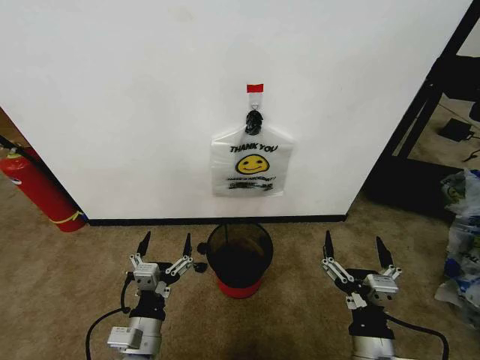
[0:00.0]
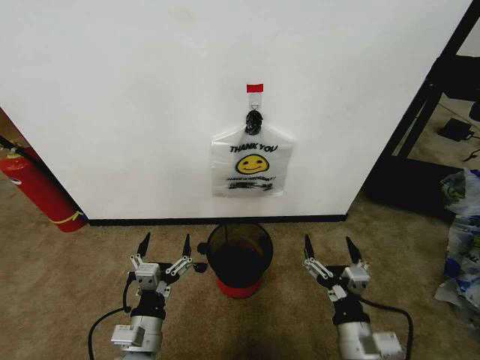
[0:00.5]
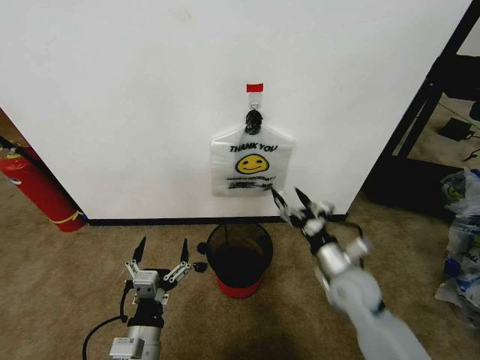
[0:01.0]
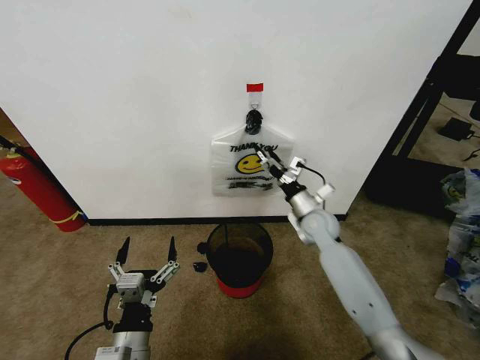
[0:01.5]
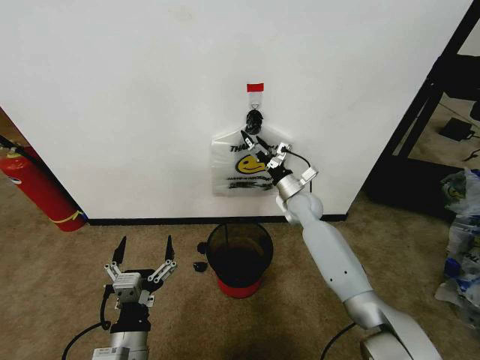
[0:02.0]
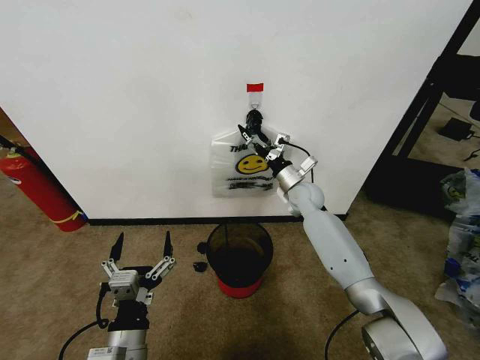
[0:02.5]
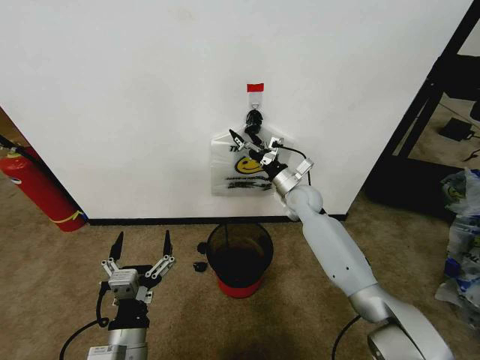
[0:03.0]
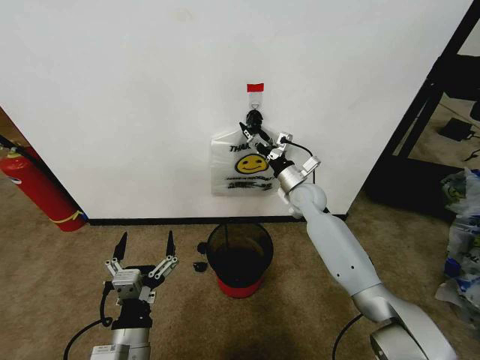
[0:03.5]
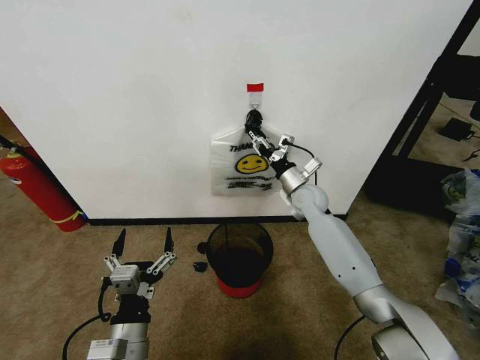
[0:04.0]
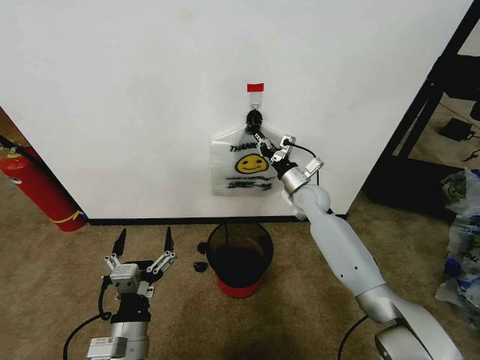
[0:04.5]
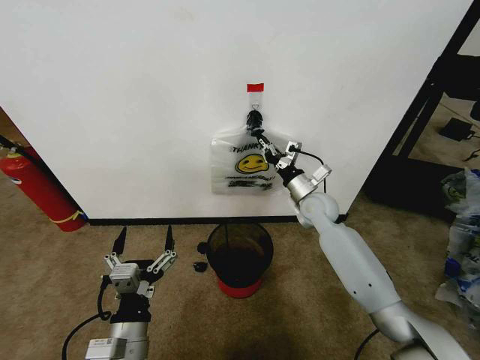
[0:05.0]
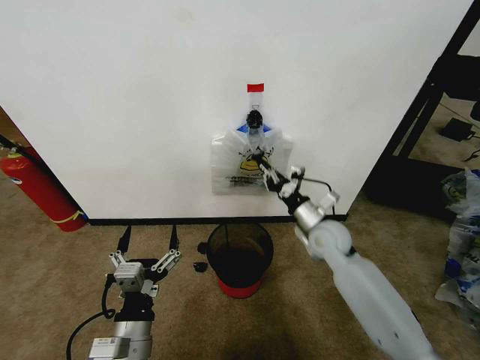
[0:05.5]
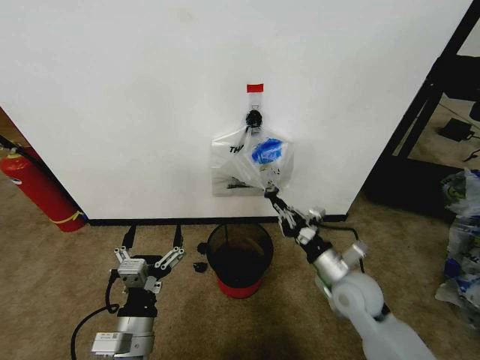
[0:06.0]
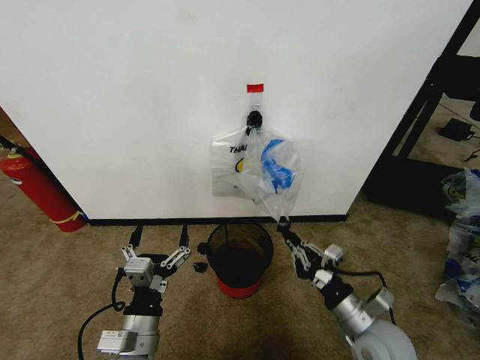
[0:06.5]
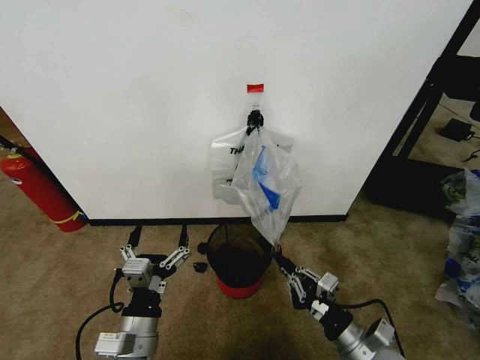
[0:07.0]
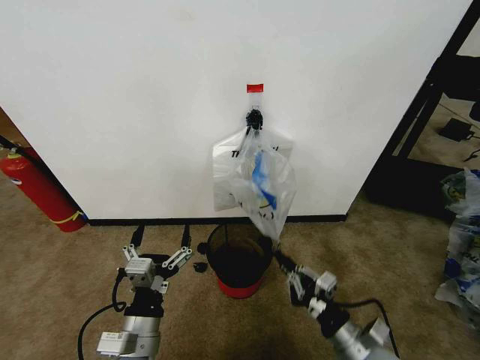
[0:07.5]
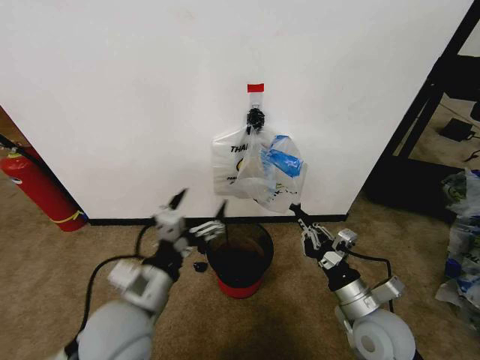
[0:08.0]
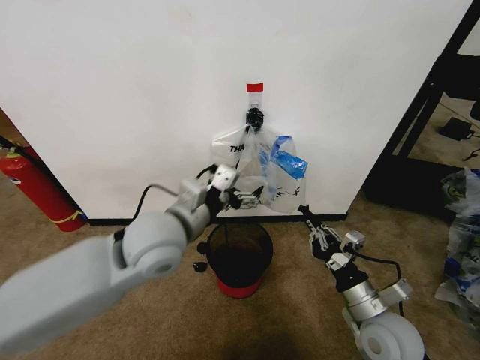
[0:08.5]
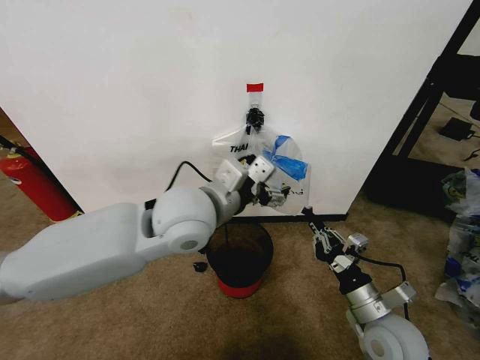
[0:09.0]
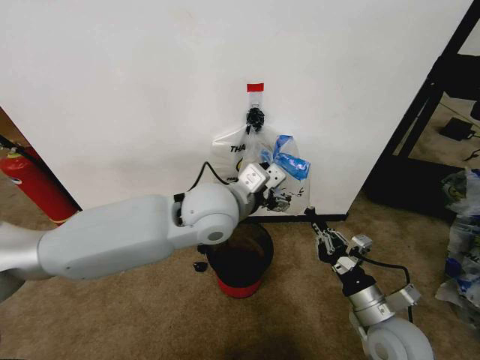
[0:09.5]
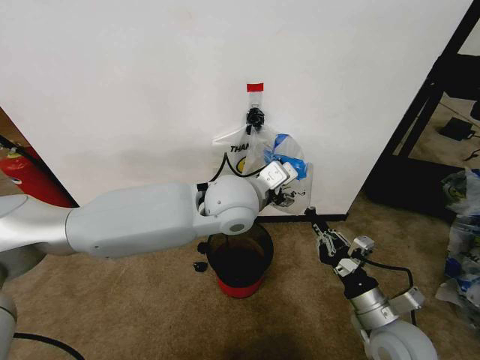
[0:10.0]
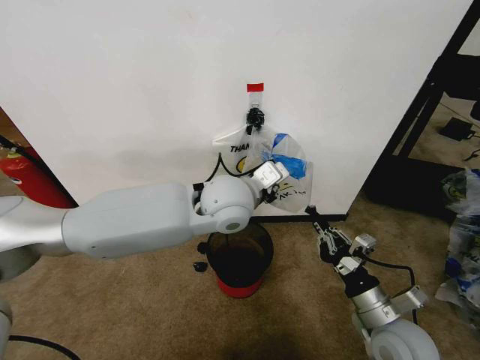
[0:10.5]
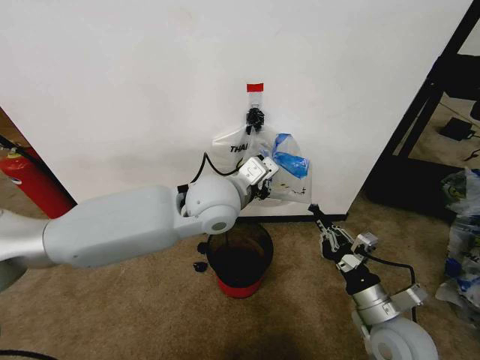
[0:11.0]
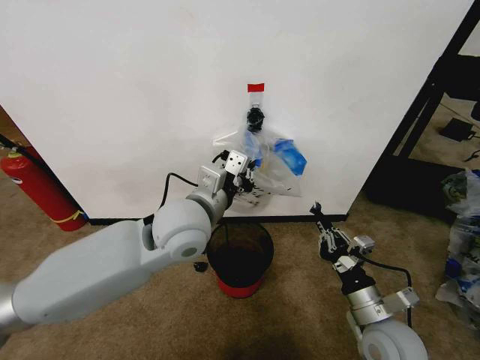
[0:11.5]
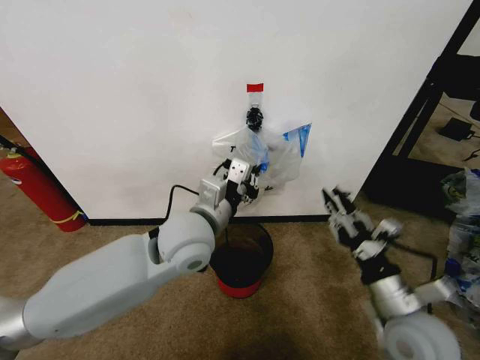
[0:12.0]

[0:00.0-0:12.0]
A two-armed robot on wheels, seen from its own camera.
Task of the whole recording: Pick up the garbage bag from the wall and place it over the trash bin.
0:02.0 to 0:04.0: The right gripper closes its fingers.
0:04.0 to 0:06.0: The right gripper shifts about 25 cm backward, and closes up.
0:06.0 to 0:08.0: The left gripper is displaced upward by approximately 10 cm. Meanwhile the right gripper goes some 5 cm backward.
0:08.0 to 0:10.0: The left gripper shifts roughly 25 cm forward, to the right and upward.
0:10.0 to 0:12.0: The right gripper goes roughly 5 cm upward, and opens. Meanwhile the left gripper shifts some 10 cm to the left and downward, and closes its fingers.

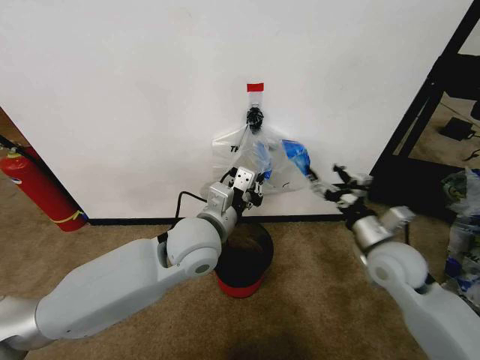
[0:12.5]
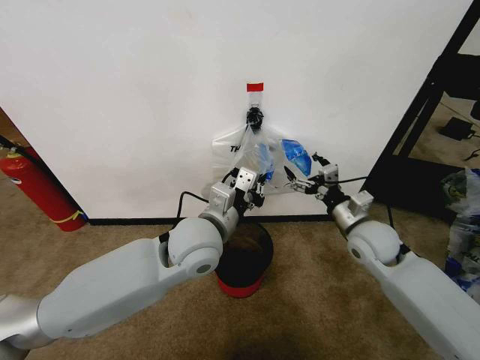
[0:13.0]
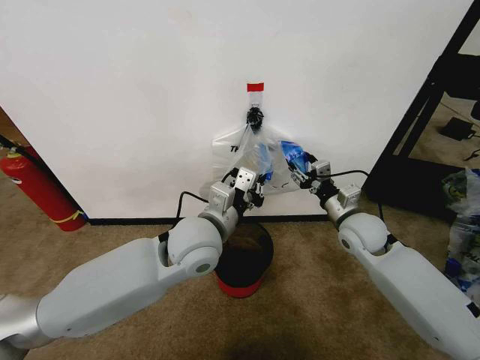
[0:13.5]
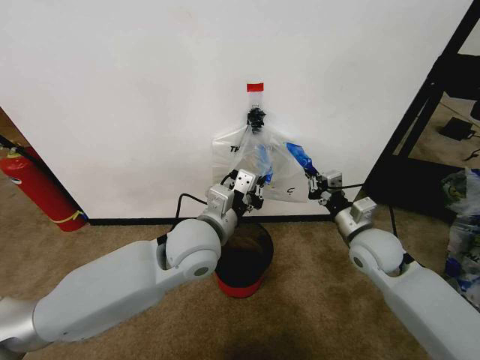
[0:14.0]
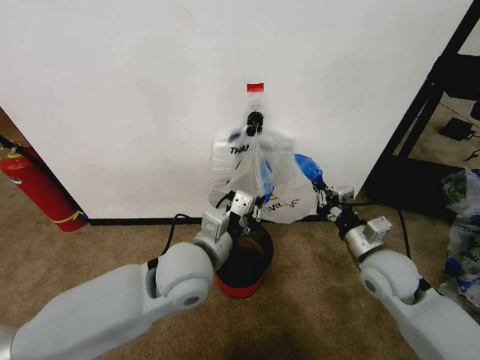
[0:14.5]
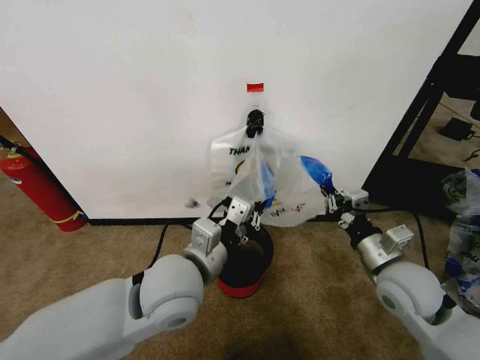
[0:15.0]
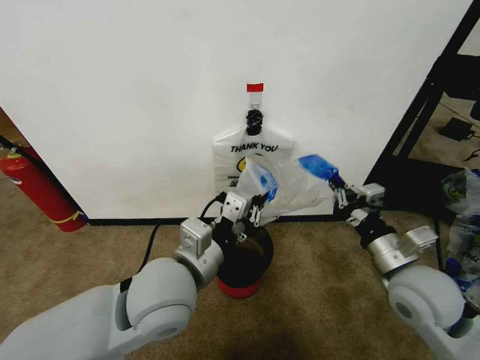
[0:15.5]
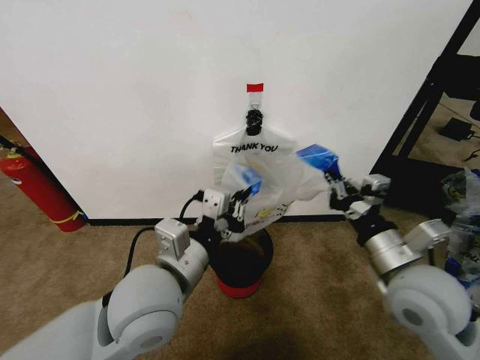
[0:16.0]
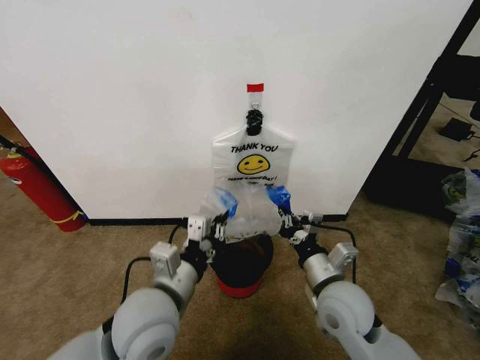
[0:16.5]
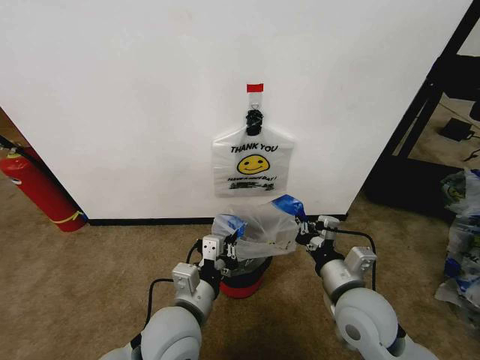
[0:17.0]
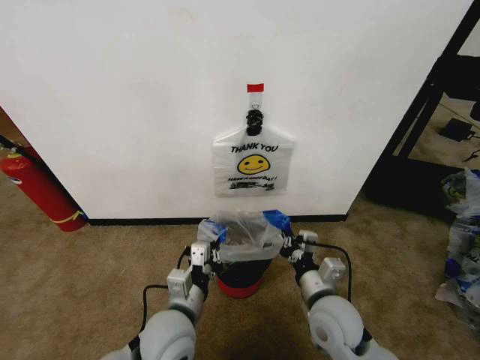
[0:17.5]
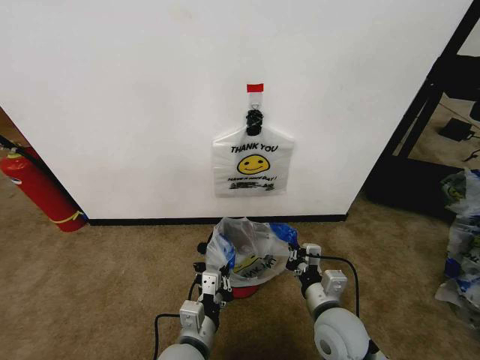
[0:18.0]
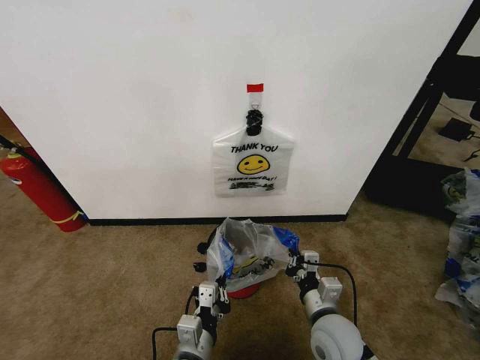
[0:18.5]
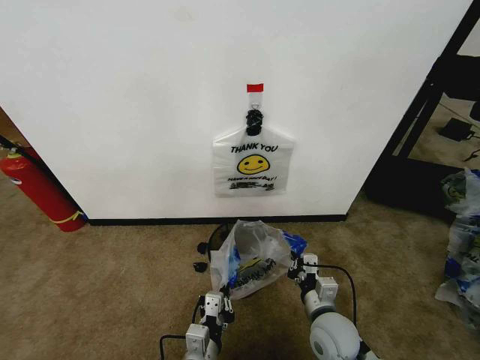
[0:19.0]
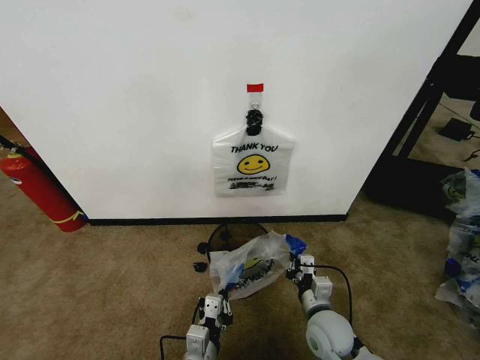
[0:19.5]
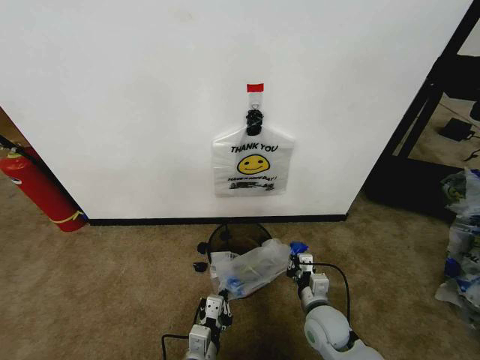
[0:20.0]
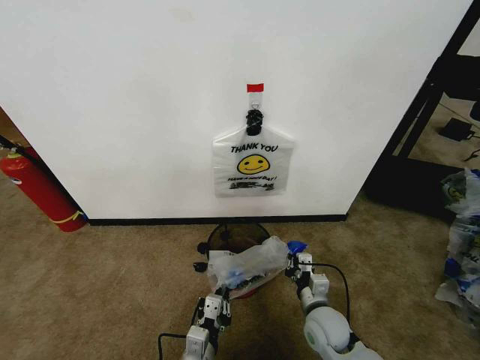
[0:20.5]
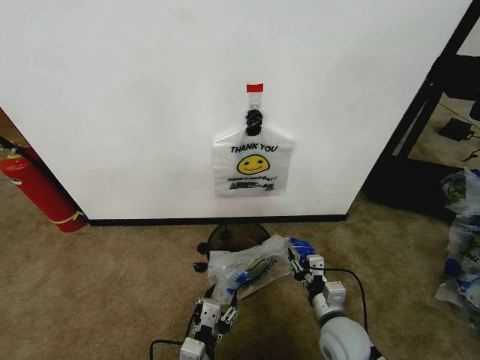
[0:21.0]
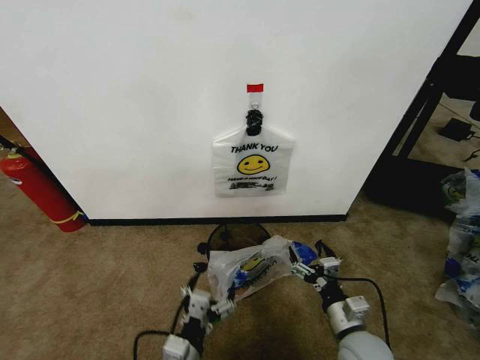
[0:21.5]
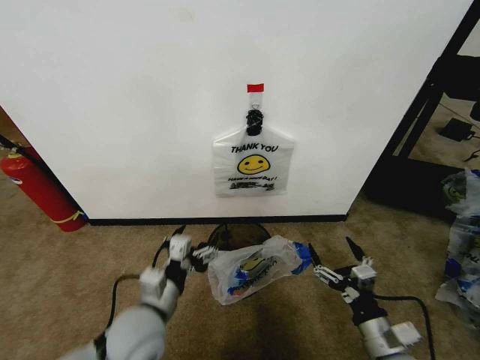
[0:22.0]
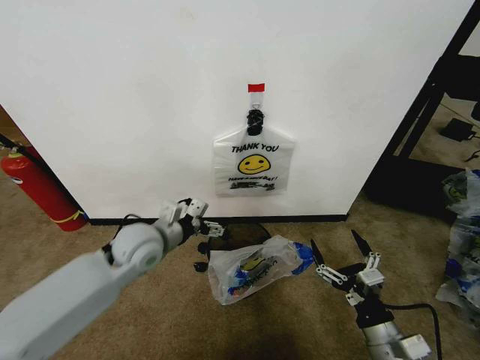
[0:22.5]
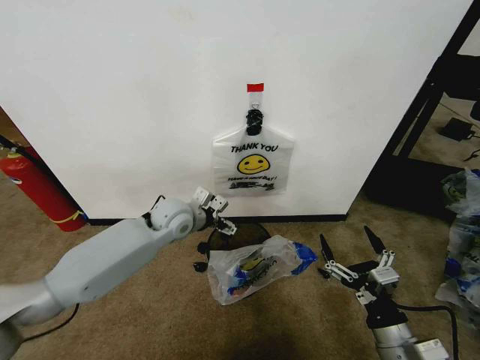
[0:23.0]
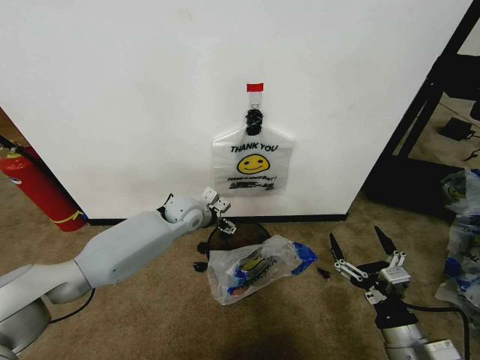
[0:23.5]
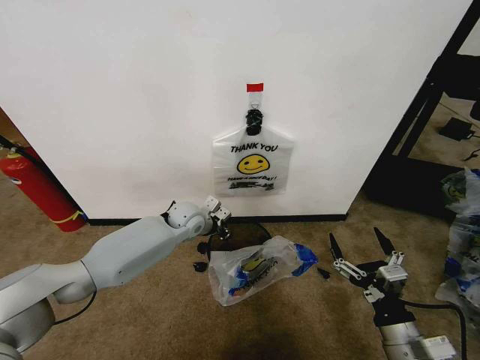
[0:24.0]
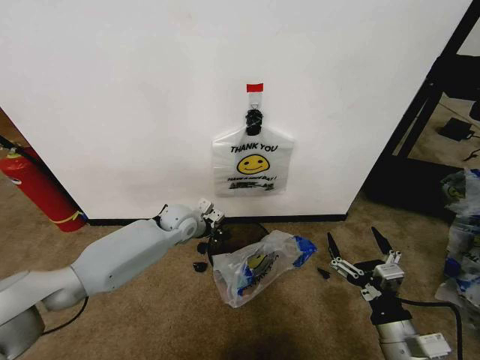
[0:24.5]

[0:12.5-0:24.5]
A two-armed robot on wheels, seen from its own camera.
Task of the whole recording: Pick up the garbage bag from the wall and place it over the trash bin.
0:12.5 to 0:14.5: The right gripper reaches roughly 10 cm forward, then returns, and closes its fingers.
0:14.5 to 0:16.5: The right gripper moves to the left and backward, some 10 cm. Meanwhile the left gripper goes about 5 cm backward.
0:16.5 to 0:18.5: The right gripper travels downward by roughly 10 cm. Meanwhile the left gripper heads downward and backward, covering about 15 cm.
0:18.5 to 0:20.5: The right gripper heads downward, covering some 5 cm, while the left gripper ends up roughly 5 cm from where it was.
0:20.5 to 0:22.5: The left gripper moves forward, upward and to the left, roughly 30 cm, and opens up. The right gripper heads backward, to the right and upward, covering about 15 cm, and opens.
0:22.5 to 0:24.5: The left gripper is displaced forward and downward by some 15 cm, and closes up.

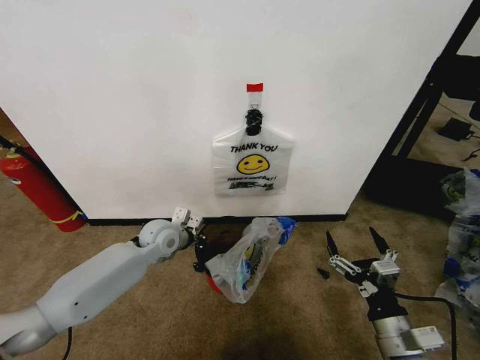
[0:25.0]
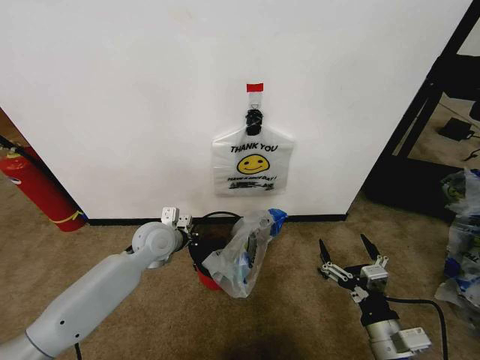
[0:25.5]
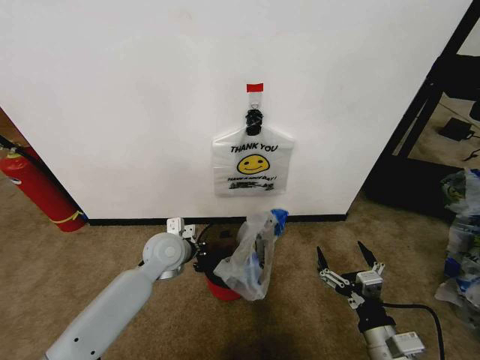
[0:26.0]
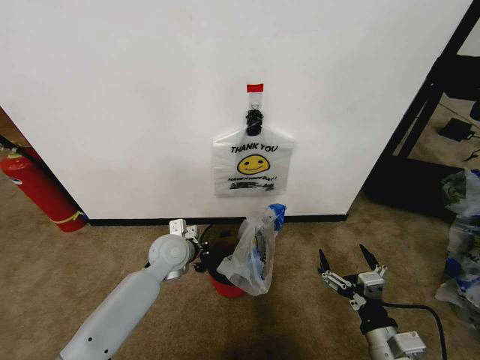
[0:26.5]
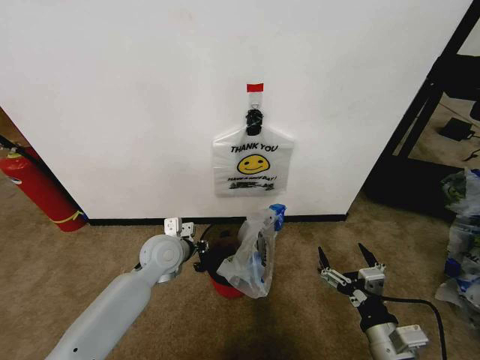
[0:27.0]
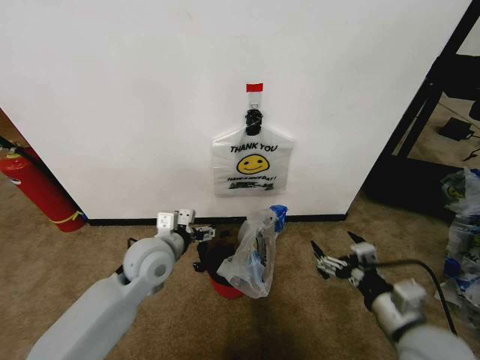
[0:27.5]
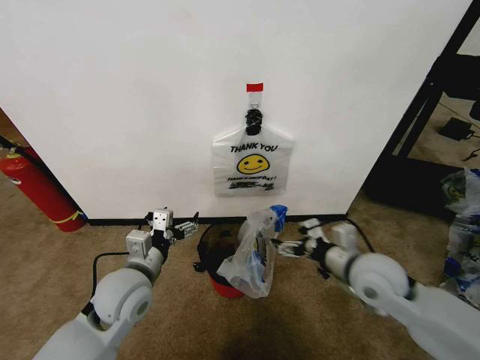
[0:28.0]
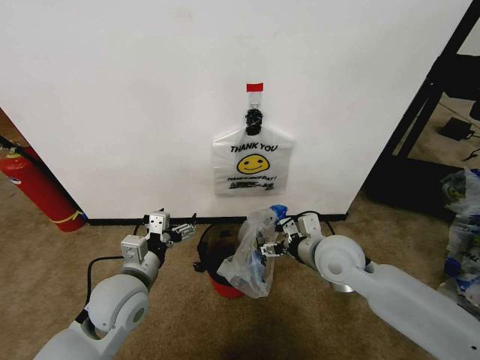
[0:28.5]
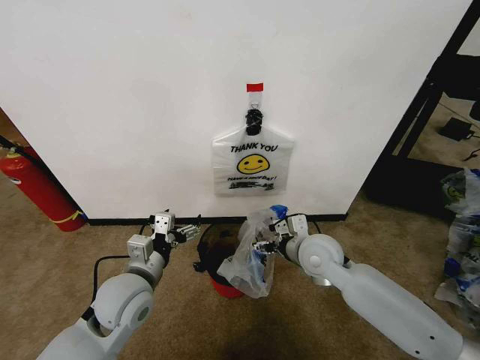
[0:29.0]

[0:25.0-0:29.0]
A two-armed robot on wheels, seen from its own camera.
Task of the whole recording: Pick up the garbage bag from the wall and place it over the trash bin.
0:25.0 to 0:27.0: The left gripper moves backward, approximately 5 cm, and opens up.
0:27.0 to 0:29.0: The right gripper shifts approximately 25 cm forward and to the left. The left gripper is displaced backward by about 10 cm, and opens.
